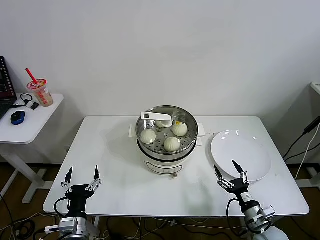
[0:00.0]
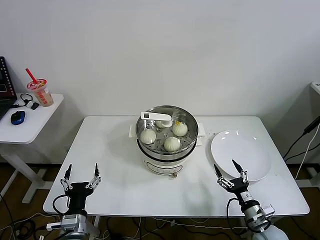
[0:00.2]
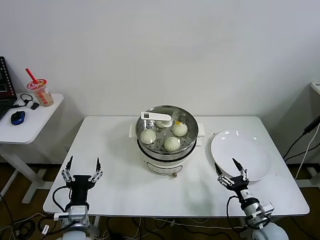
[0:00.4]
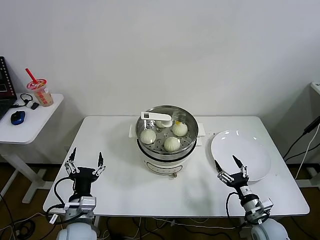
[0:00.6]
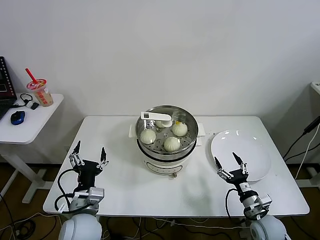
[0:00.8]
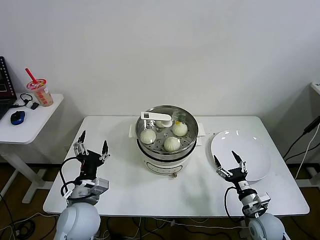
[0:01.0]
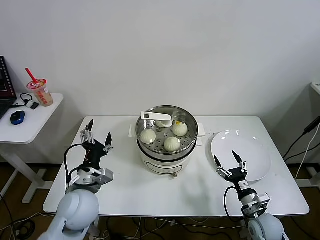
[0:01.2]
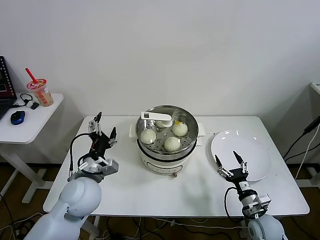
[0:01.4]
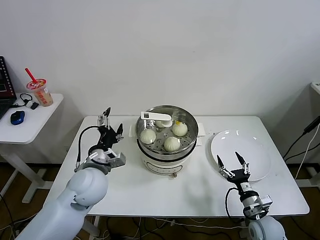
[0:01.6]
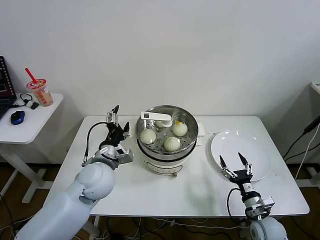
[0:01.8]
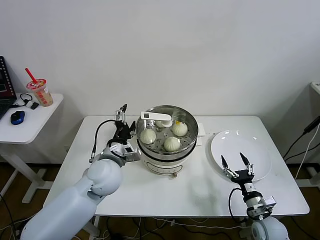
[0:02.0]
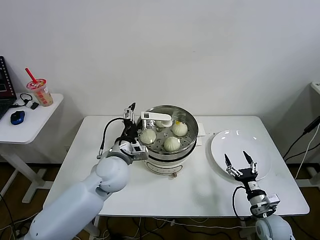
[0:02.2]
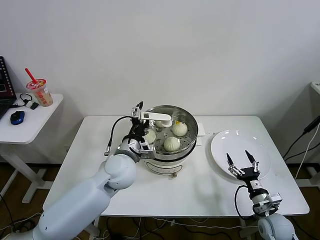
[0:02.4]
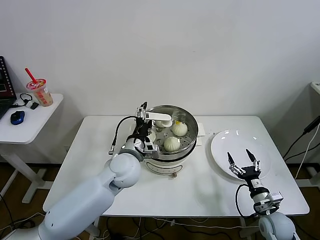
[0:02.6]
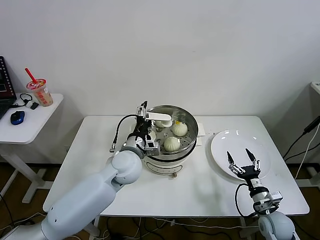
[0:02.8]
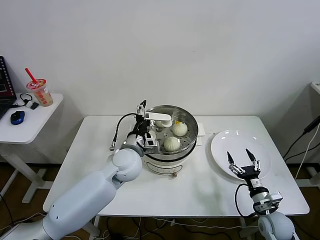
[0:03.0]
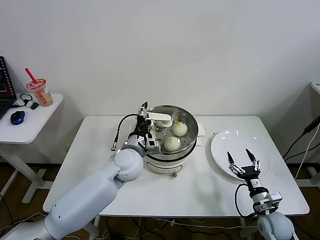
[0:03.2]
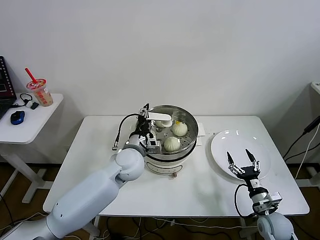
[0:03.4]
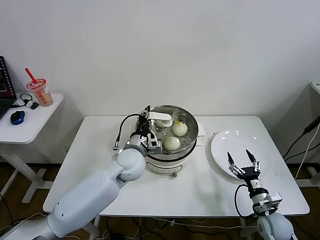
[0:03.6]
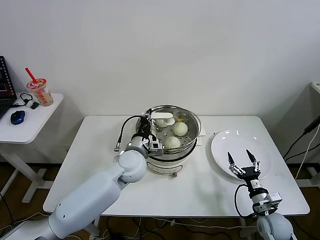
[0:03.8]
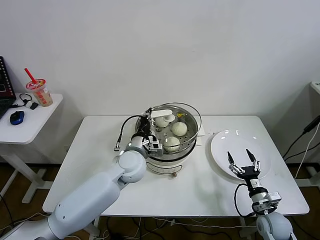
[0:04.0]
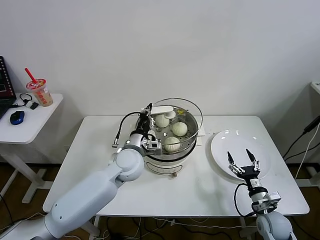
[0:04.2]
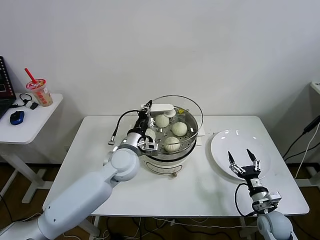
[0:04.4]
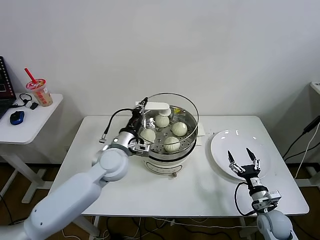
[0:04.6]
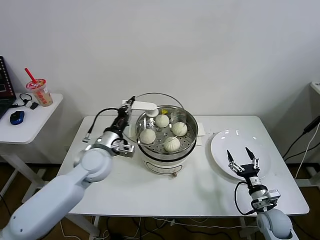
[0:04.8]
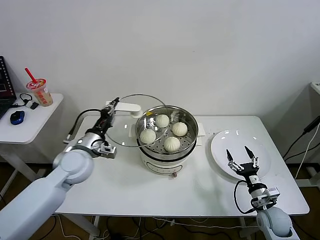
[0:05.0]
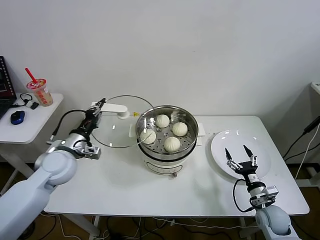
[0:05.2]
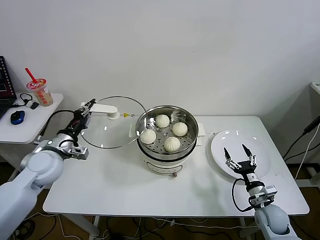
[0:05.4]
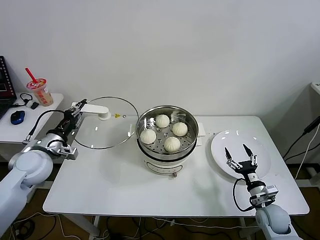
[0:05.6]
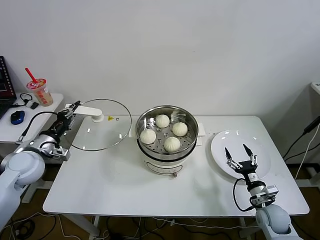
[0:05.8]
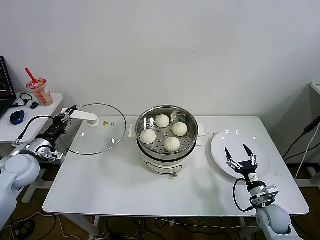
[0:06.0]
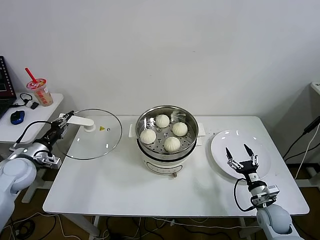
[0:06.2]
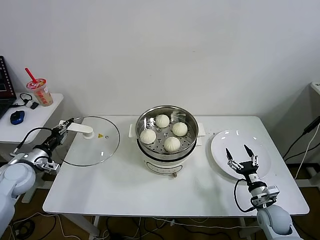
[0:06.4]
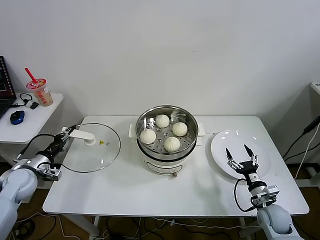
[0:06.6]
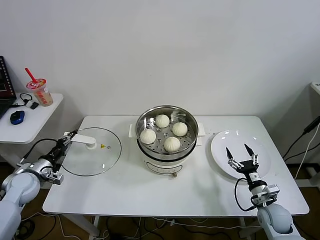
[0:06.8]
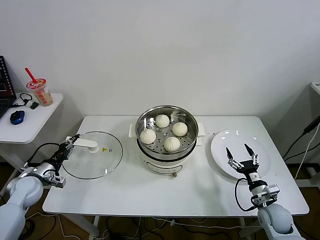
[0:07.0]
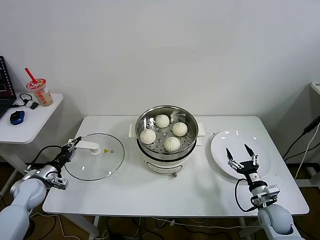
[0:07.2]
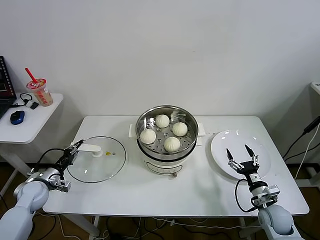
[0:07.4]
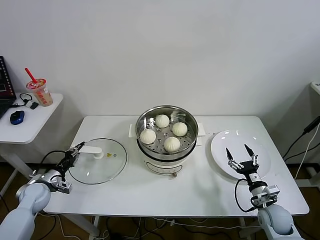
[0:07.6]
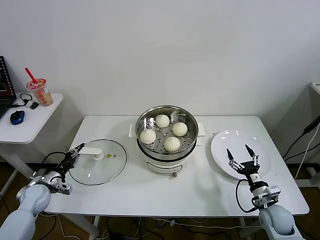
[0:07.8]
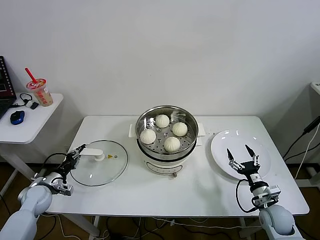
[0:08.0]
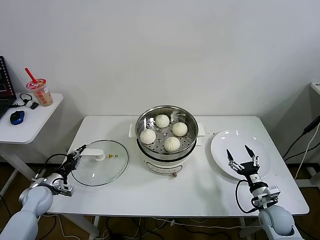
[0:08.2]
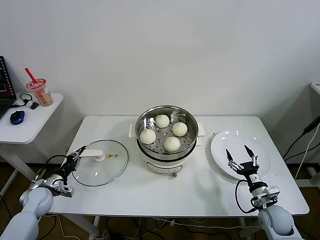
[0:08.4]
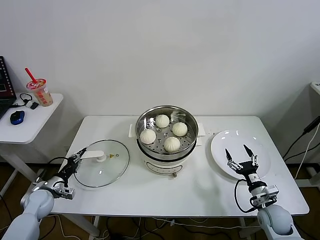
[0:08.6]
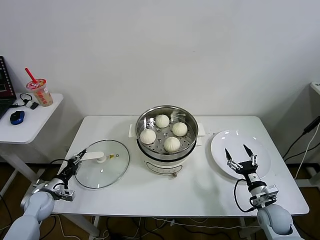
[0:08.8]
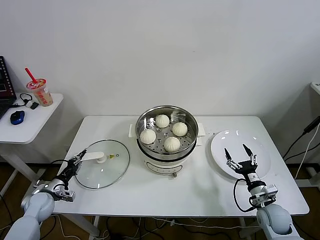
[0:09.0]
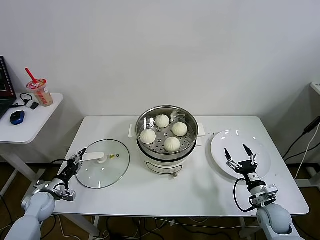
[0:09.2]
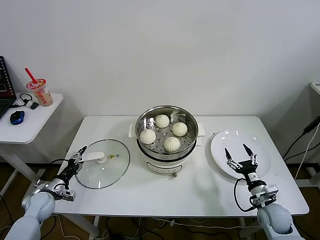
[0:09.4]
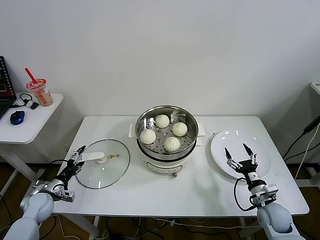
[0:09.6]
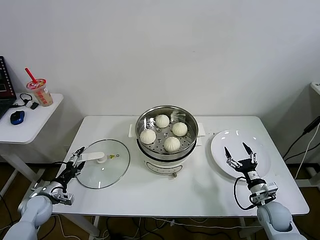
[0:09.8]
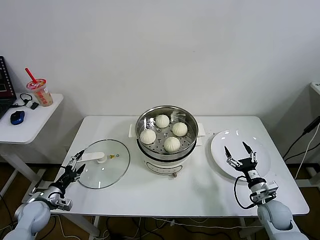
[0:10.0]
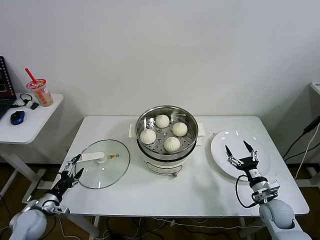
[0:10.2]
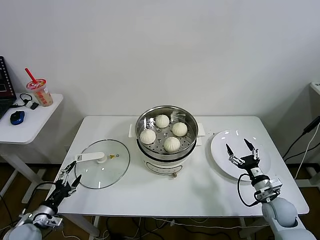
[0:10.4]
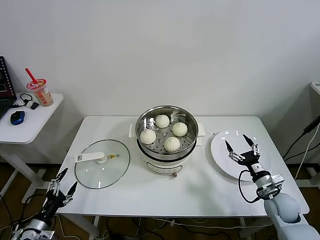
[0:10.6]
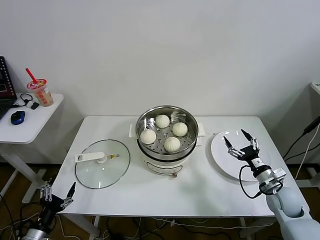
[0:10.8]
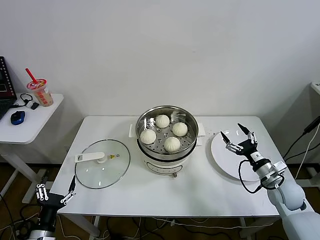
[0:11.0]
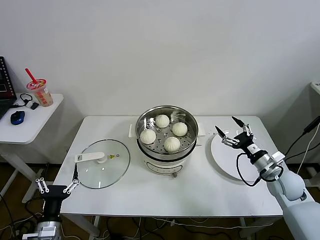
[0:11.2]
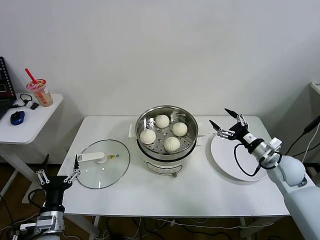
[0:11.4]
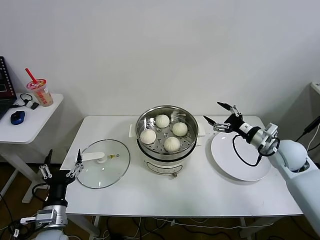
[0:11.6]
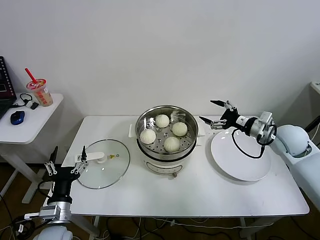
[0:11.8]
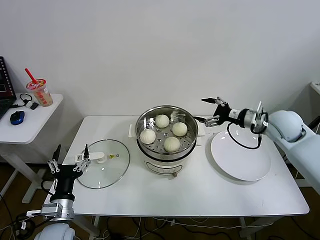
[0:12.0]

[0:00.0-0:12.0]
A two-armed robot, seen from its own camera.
Task of the whole recording: take steamed baozi put them in steamer then cover it.
Step, 0:00.0 to 0:03.8: Grasp the pot lid with left gripper.
Step, 0:04.0 to 0:09.0: Place the pot lid on the table with left gripper.
0:01.6 to 0:03.0: The left gripper is displaced to the right and forward by roughly 10 cm.
0:03.0 to 0:04.4: The left gripper closes up.
0:04.4 to 0:06.0: The left gripper shifts some 30 cm to the left.
0:06.0 to 0:07.6: The left gripper moves downward, approximately 15 cm.
0:07.6 to 0:09.0: There are only small adjustments of the grippers.
0:09.0 to 0:10.4: The left gripper is displaced backward by approximately 10 cm, and opens its fingers.
0:10.4 to 0:12.0: The right gripper travels upward and forward by roughly 30 cm, while the left gripper travels to the right and upward by approximately 15 cm.

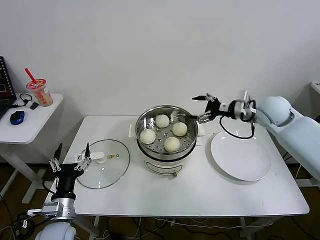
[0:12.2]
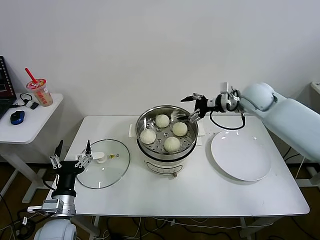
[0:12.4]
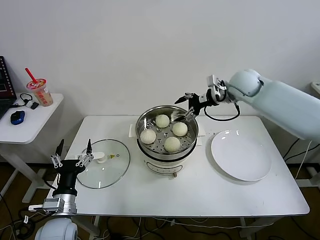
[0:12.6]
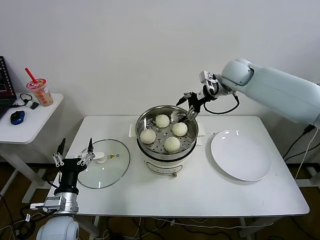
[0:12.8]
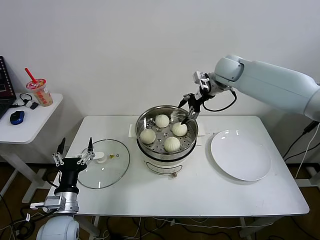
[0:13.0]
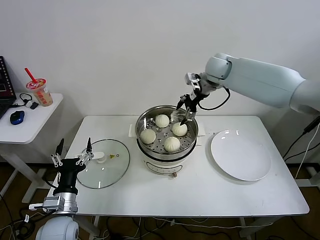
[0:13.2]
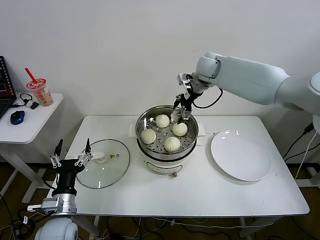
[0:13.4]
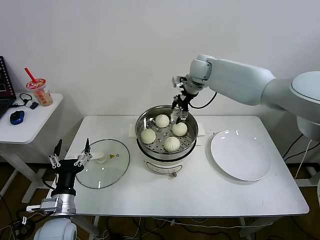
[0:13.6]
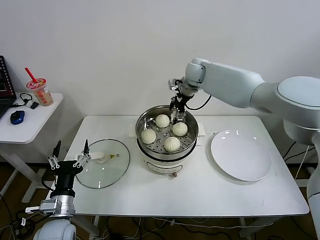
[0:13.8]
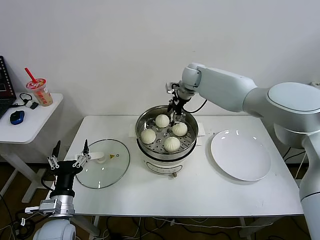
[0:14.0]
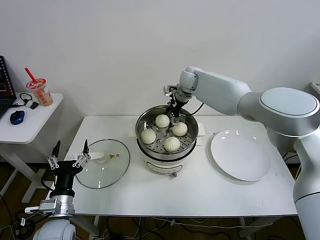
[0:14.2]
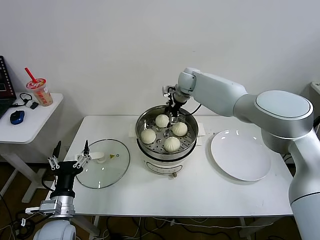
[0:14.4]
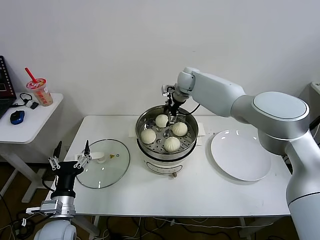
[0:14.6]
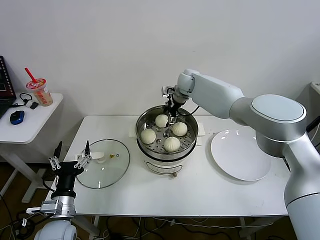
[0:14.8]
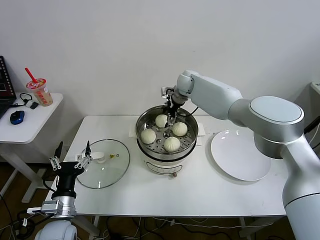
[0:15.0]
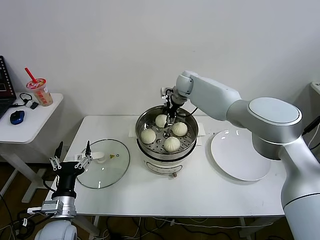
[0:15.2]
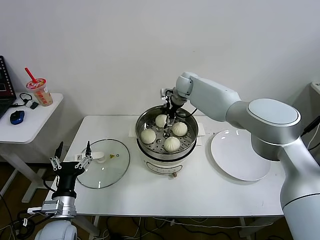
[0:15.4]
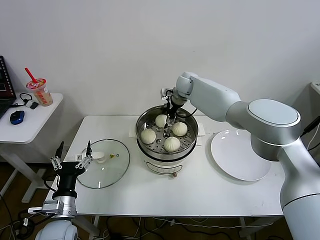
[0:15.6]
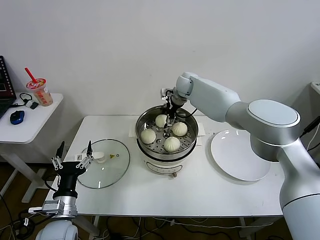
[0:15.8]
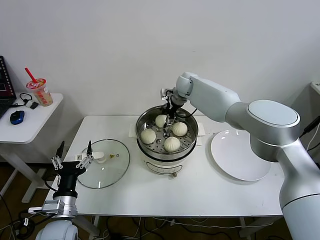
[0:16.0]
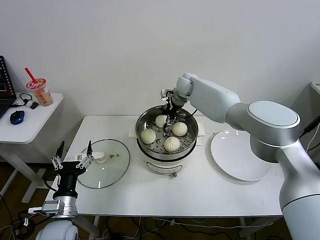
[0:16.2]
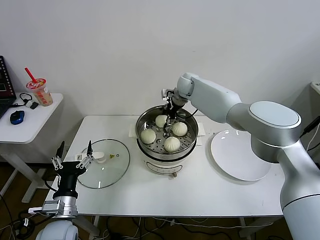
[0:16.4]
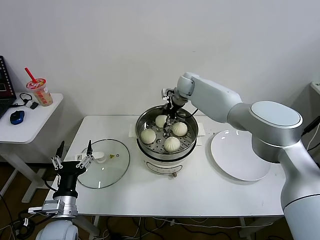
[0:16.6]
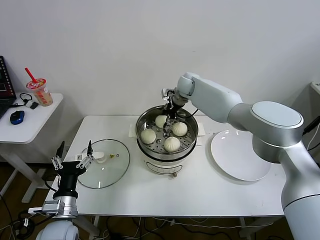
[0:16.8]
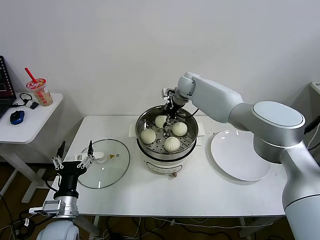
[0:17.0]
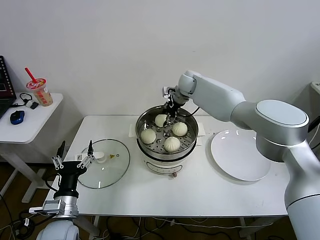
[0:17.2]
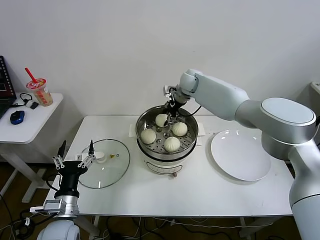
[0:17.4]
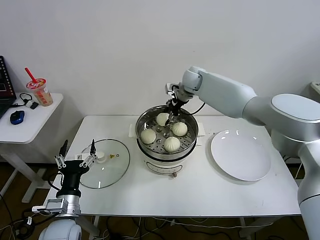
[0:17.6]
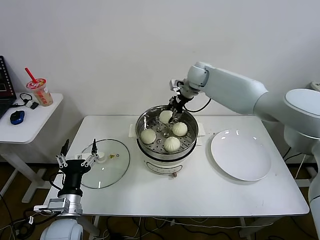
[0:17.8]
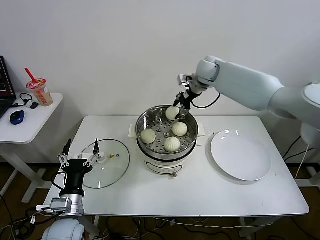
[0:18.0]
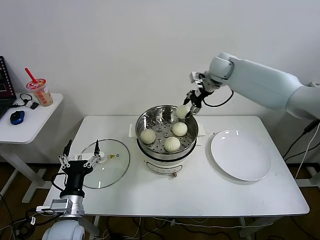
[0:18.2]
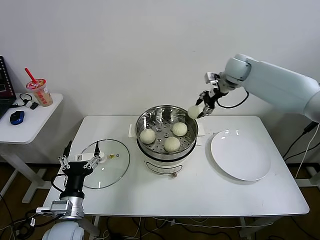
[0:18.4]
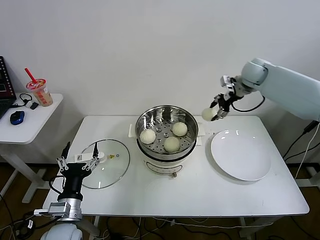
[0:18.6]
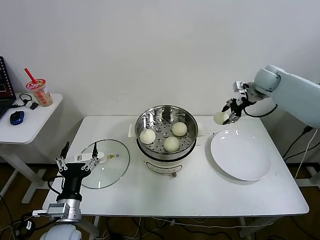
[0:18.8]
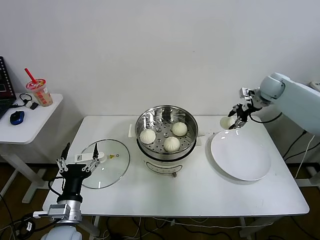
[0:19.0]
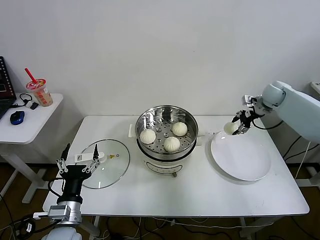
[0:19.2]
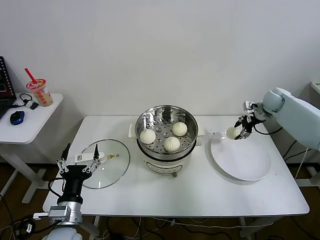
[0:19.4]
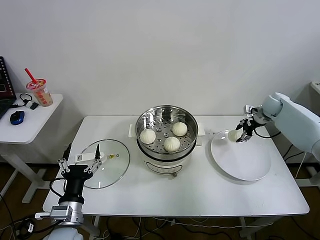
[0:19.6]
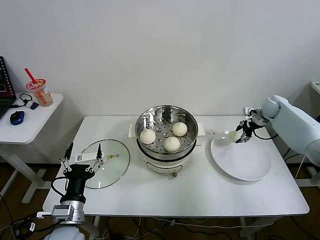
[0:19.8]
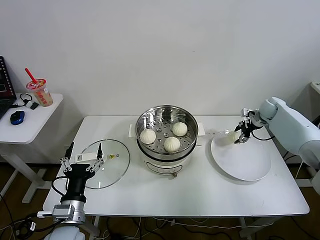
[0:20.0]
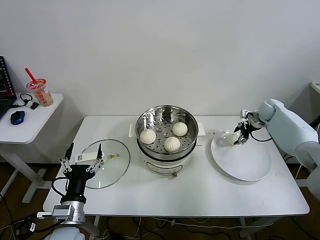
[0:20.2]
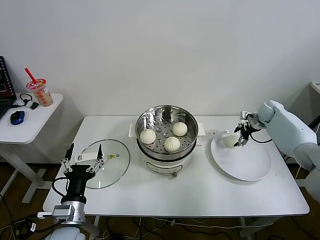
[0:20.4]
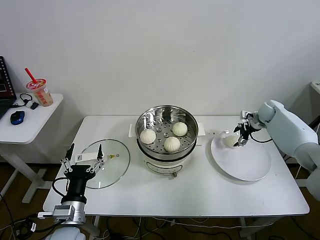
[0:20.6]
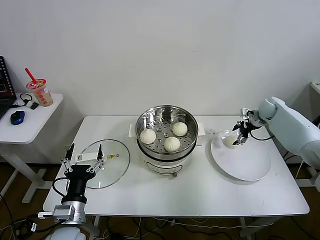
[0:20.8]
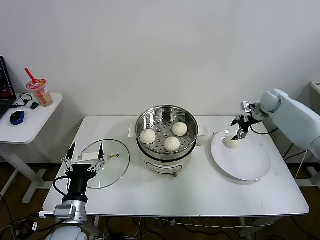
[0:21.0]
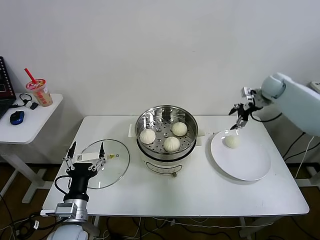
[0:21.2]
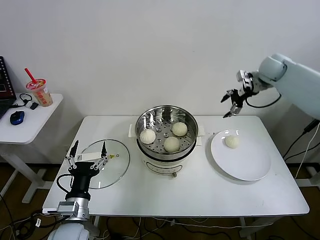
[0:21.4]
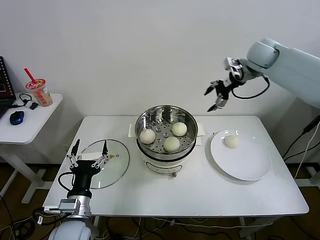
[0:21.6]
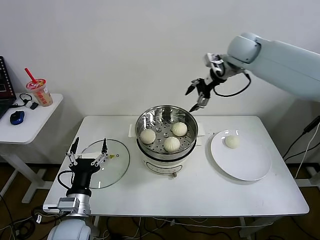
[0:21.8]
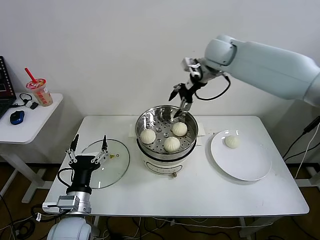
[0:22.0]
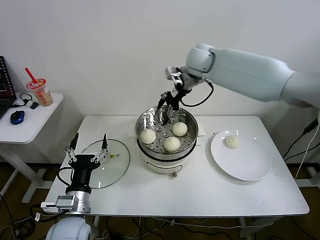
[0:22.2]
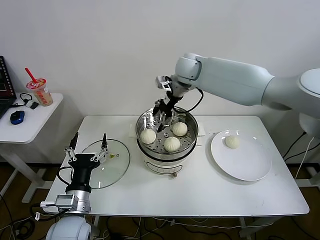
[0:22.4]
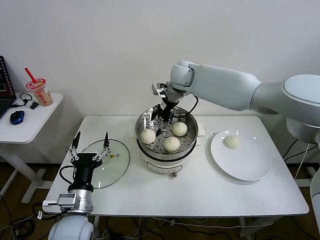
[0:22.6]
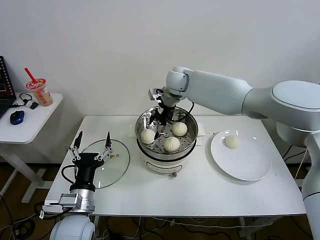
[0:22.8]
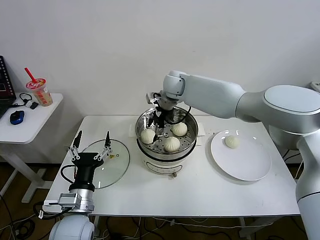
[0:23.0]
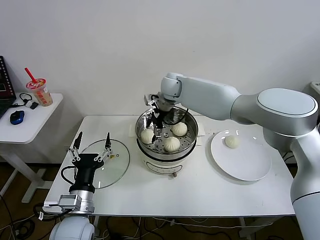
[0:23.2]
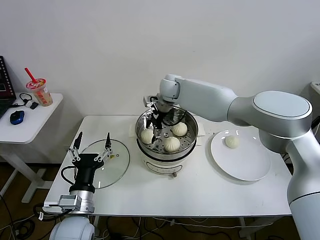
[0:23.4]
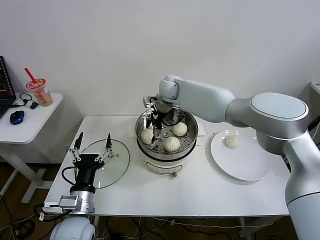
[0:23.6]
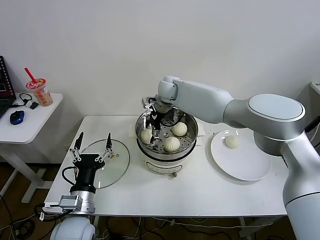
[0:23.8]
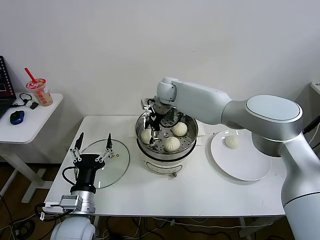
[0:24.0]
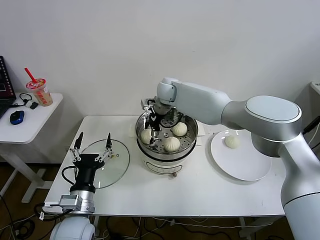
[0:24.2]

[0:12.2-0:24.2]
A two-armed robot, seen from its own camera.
Task of the whole recording: take steamed baozi put them in steamer then cover it.
Step, 0:12.2 to 0:17.0: Grasp the baozi with right gripper.
Step, 0:17.2 to 0:20.4: Place the baozi on the plate with right gripper.
0:12.2 to 0:13.8: The right gripper moves to the left and forward, some 25 cm.
0:13.8 to 0:15.2: The right gripper shifts roughly 5 cm downward.
0:15.2 to 0:16.6: The right gripper closes up.
0:16.6 to 0:18.2: The right gripper goes about 15 cm to the right and upward.
0:18.2 to 0:19.8: The right gripper moves to the right and downward, about 30 cm.
0:19.8 to 0:21.2: The right gripper goes roughly 10 cm upward, and opens up.
0:21.2 to 0:22.6: The right gripper heads to the left, covering roughly 35 cm.
0:22.6 to 0:24.2: The right gripper is displaced downward by approximately 5 cm.
